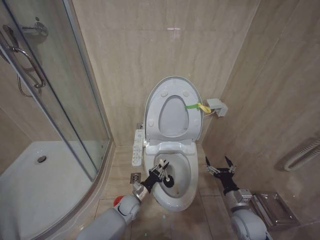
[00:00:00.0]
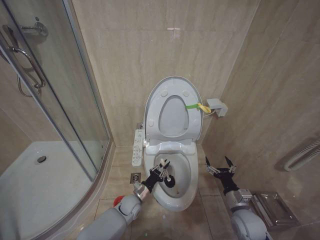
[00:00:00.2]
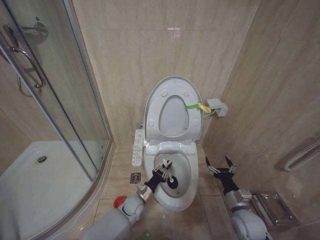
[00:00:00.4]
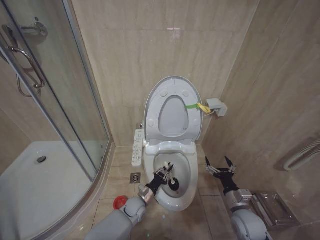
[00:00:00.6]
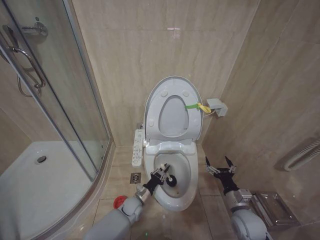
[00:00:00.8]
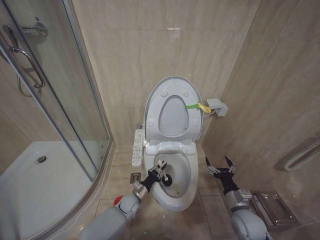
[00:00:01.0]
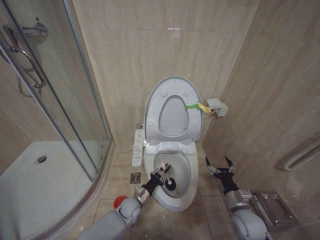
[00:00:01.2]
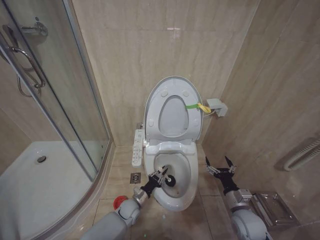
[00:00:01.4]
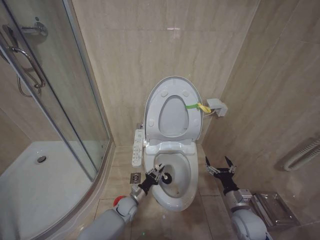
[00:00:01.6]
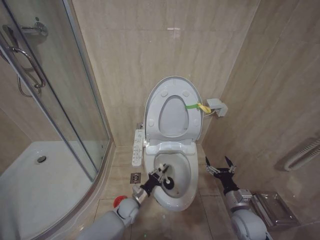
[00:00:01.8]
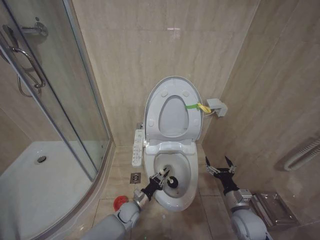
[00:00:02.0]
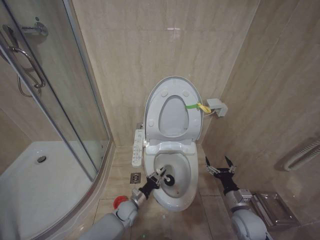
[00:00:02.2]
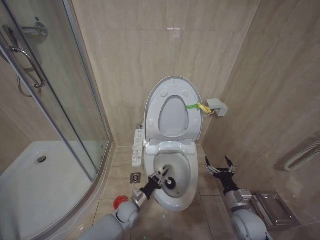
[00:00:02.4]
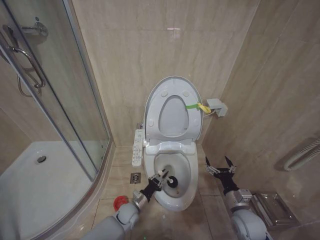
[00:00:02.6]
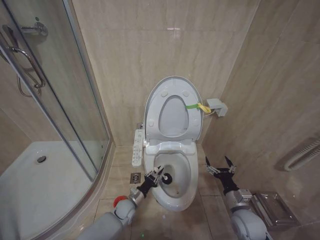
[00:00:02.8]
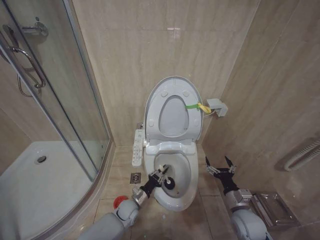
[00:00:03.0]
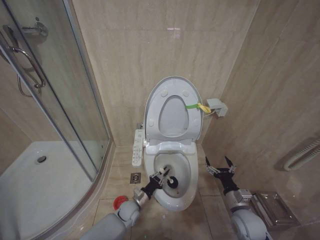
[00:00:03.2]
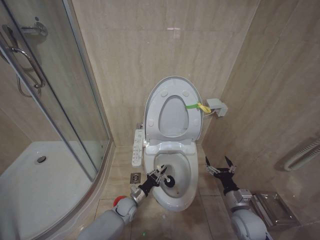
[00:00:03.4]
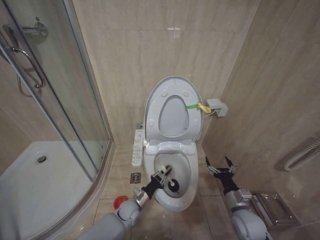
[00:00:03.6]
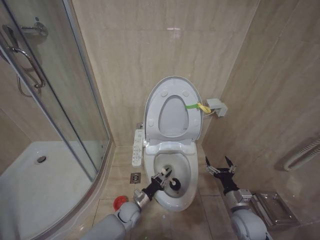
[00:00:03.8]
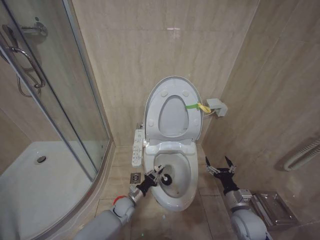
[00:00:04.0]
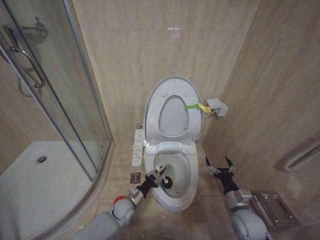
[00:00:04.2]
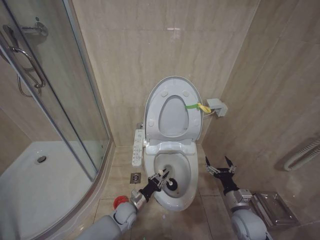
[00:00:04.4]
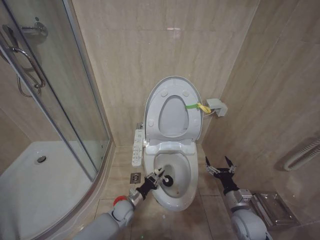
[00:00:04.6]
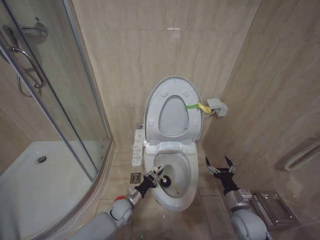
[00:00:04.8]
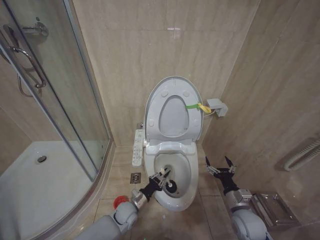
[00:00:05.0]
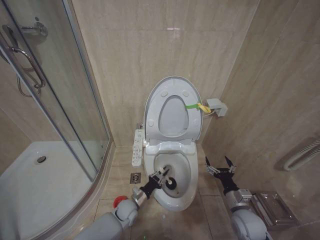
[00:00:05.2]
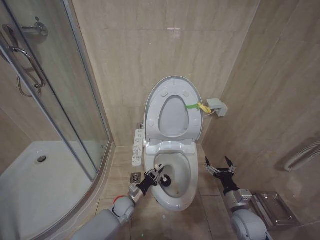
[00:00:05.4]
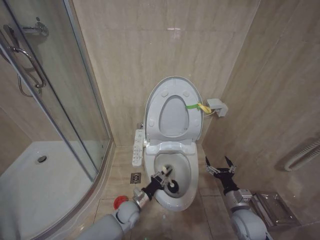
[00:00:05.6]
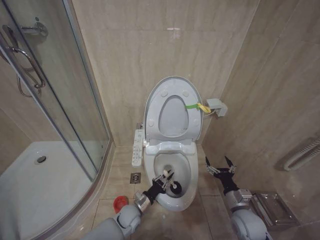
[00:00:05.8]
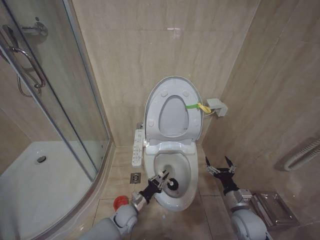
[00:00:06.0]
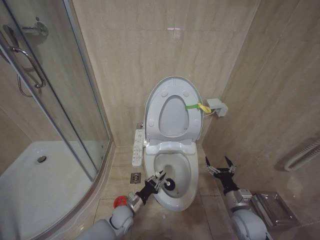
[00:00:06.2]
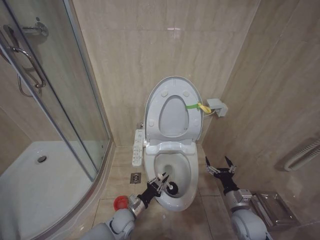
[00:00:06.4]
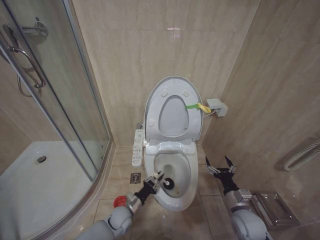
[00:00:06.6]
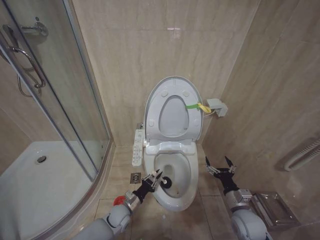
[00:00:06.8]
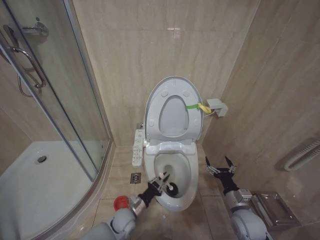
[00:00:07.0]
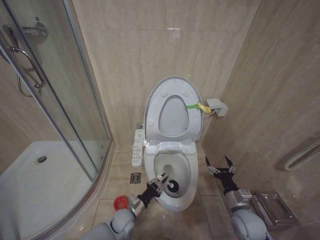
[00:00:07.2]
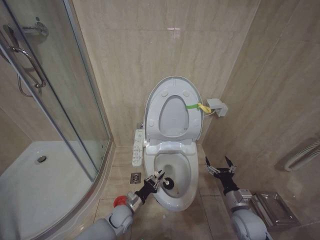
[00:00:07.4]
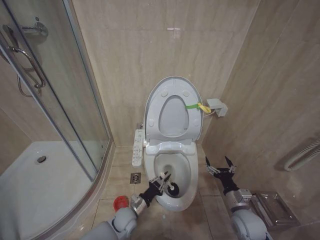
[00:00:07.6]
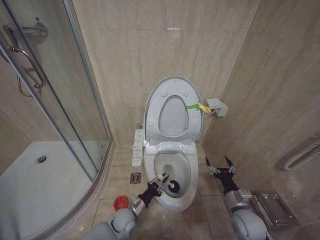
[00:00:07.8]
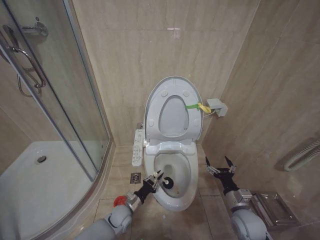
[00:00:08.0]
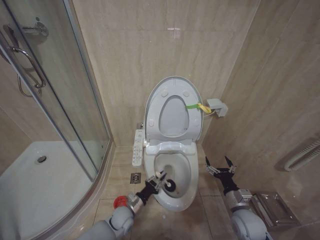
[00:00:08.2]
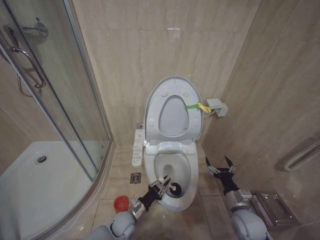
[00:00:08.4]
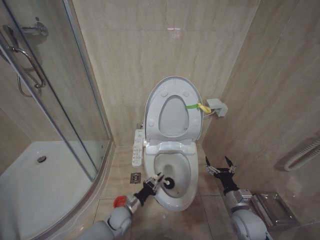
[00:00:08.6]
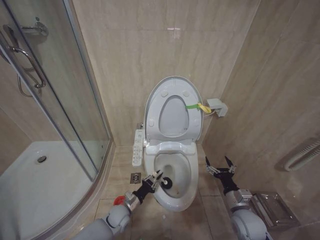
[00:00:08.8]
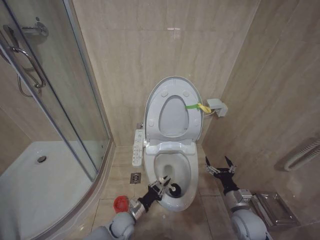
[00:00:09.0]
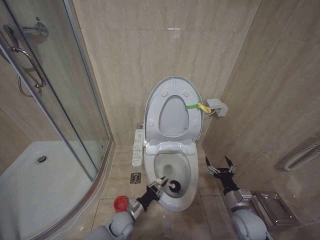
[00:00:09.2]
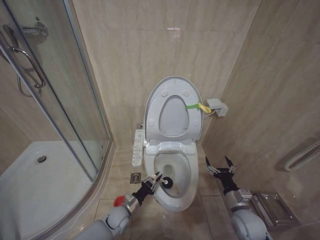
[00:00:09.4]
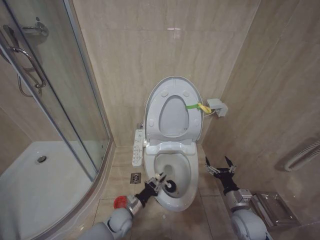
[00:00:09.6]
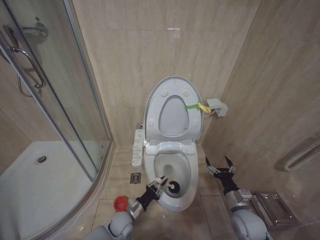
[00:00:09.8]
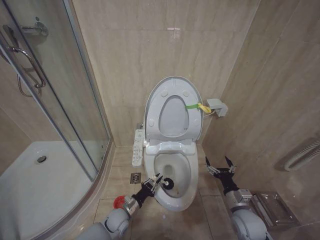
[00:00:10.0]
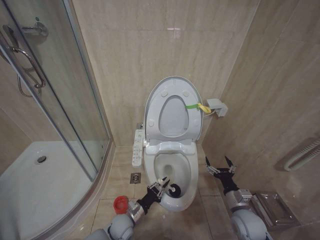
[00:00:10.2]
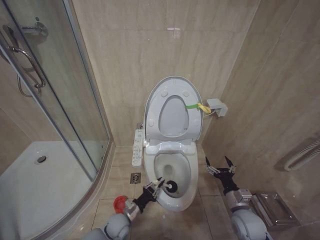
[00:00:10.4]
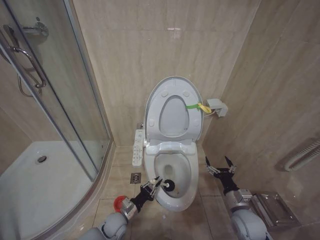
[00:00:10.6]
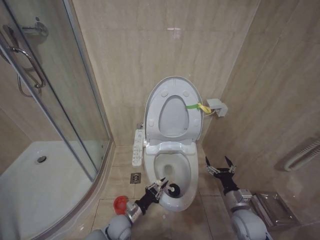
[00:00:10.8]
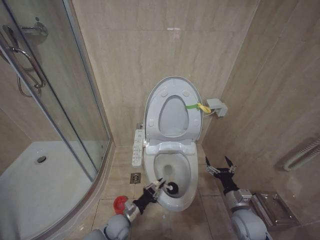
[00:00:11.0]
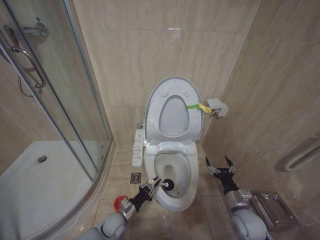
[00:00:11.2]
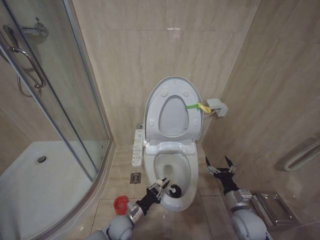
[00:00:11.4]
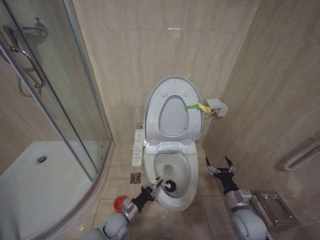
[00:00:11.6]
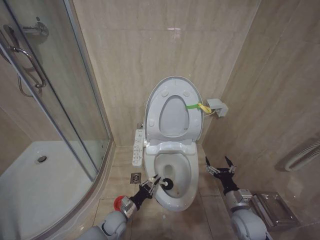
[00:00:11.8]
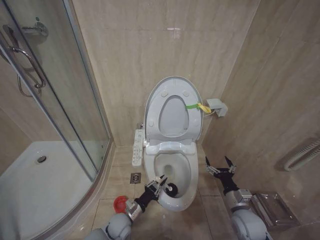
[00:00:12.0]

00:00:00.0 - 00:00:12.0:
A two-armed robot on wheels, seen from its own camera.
Task of the whole recording: Open the toilet lid, clean the toilet bowl with a toilet brush, close the toilet lid, and flush.
00:00:01.6 - 00:00:03.0: The grippers move only a little.
00:00:06.0 - 00:00:10.4: The grippers stay close to where they were, moving slightly.

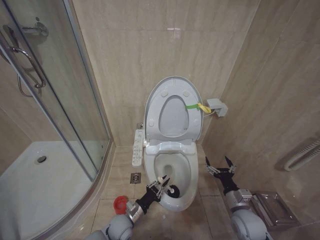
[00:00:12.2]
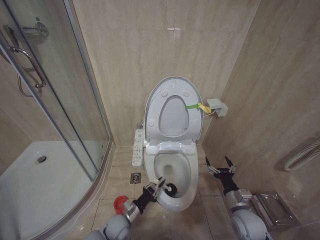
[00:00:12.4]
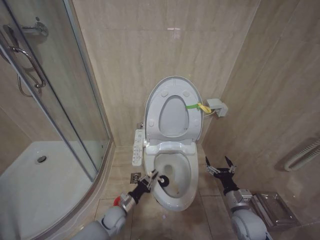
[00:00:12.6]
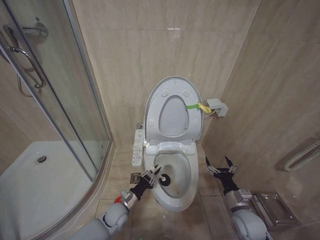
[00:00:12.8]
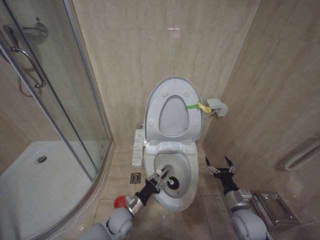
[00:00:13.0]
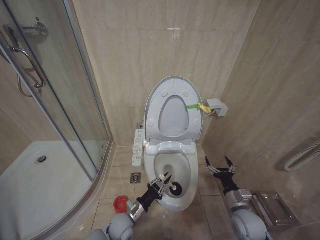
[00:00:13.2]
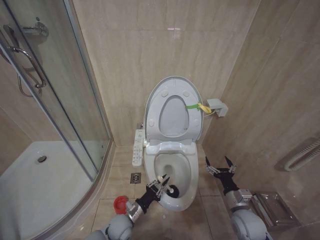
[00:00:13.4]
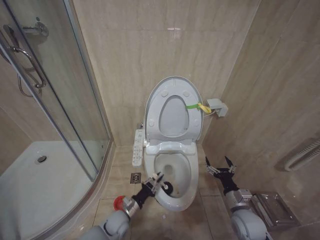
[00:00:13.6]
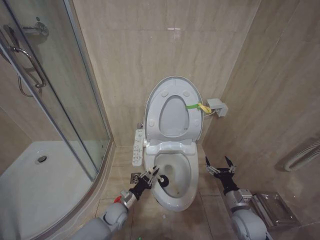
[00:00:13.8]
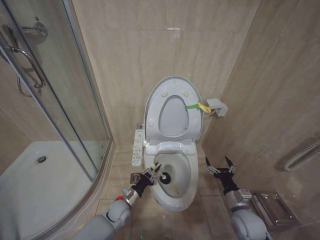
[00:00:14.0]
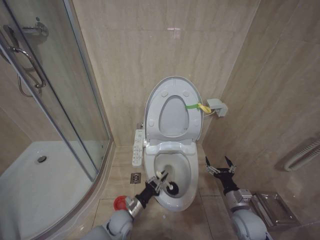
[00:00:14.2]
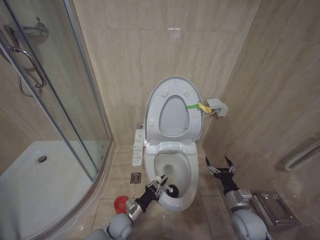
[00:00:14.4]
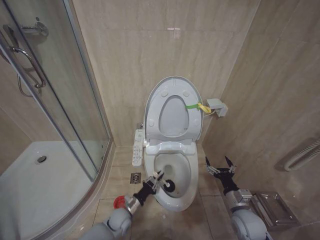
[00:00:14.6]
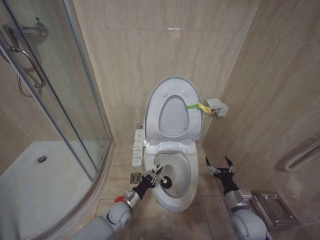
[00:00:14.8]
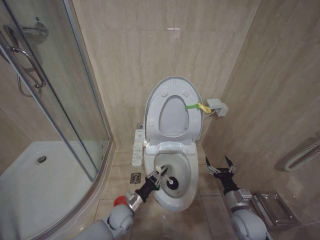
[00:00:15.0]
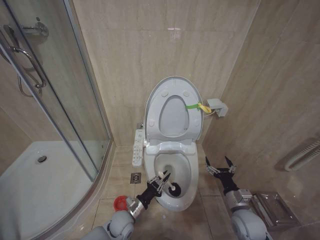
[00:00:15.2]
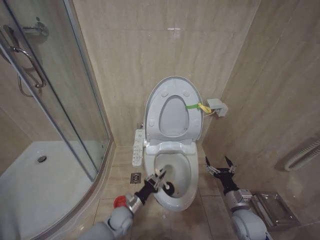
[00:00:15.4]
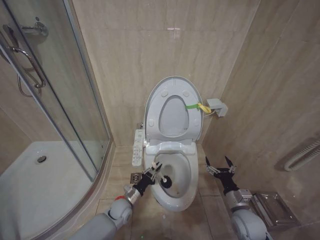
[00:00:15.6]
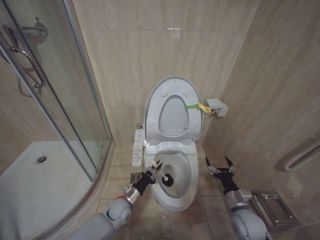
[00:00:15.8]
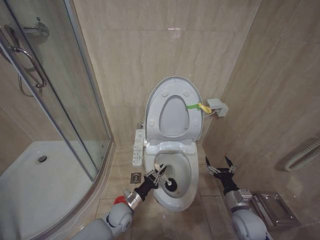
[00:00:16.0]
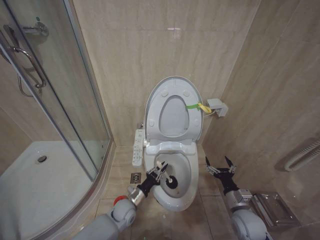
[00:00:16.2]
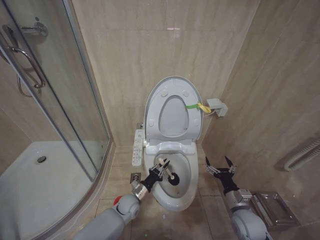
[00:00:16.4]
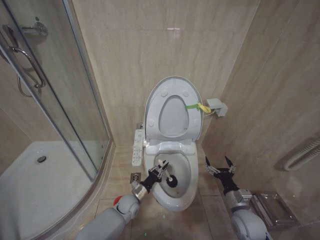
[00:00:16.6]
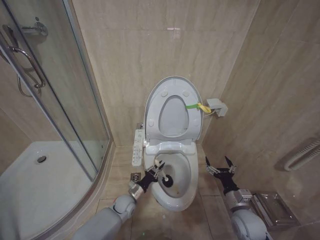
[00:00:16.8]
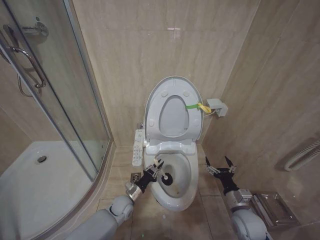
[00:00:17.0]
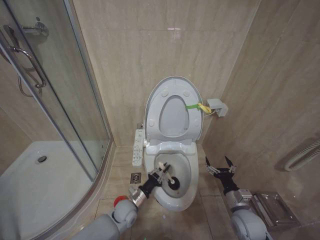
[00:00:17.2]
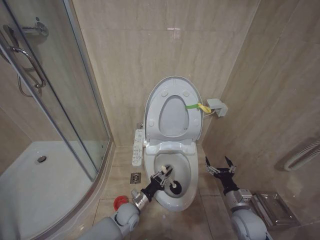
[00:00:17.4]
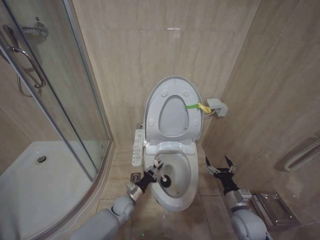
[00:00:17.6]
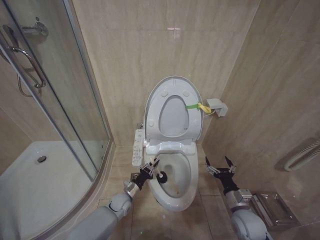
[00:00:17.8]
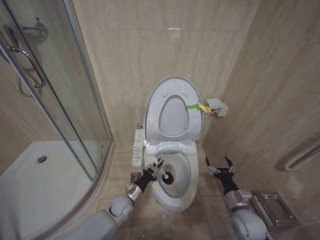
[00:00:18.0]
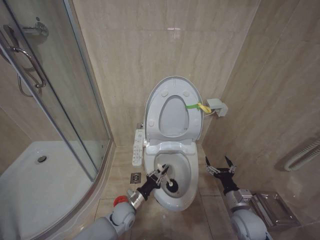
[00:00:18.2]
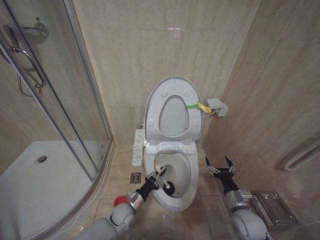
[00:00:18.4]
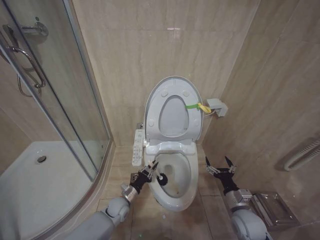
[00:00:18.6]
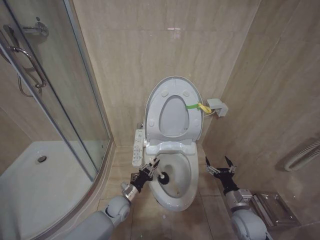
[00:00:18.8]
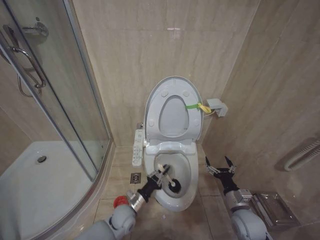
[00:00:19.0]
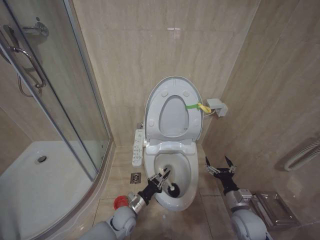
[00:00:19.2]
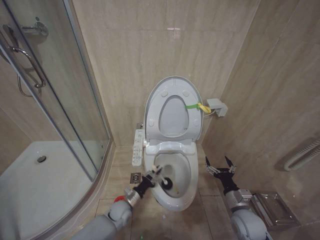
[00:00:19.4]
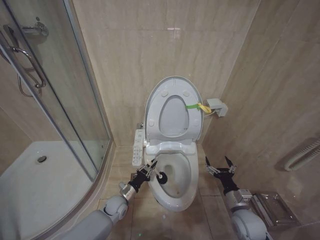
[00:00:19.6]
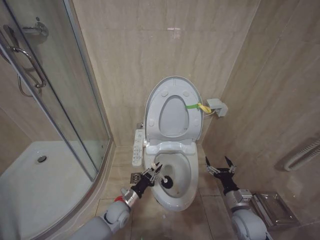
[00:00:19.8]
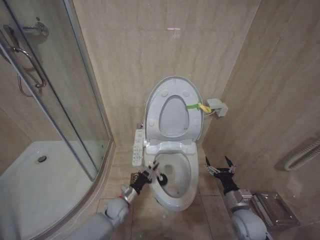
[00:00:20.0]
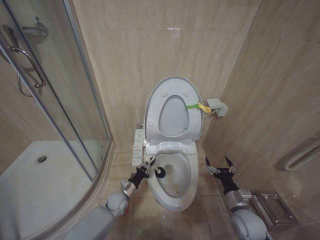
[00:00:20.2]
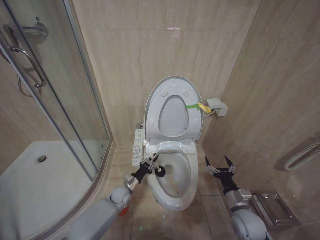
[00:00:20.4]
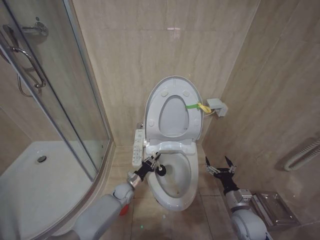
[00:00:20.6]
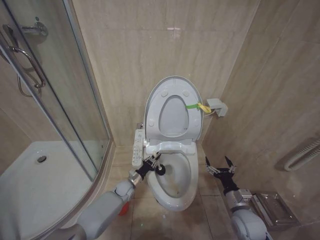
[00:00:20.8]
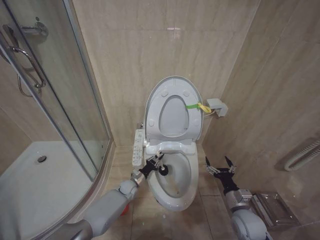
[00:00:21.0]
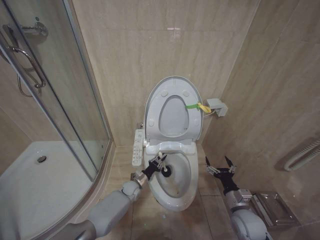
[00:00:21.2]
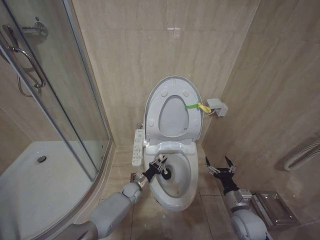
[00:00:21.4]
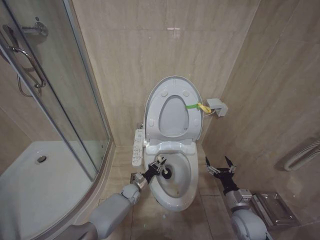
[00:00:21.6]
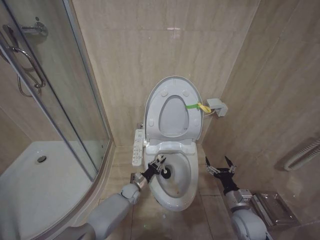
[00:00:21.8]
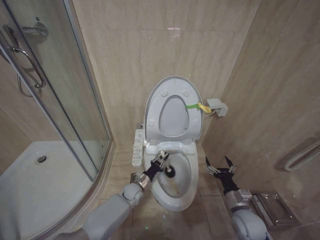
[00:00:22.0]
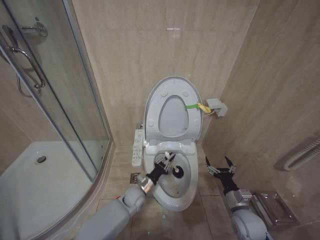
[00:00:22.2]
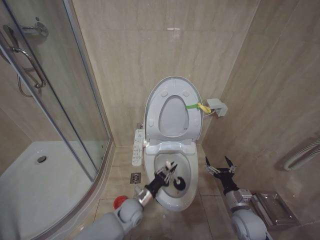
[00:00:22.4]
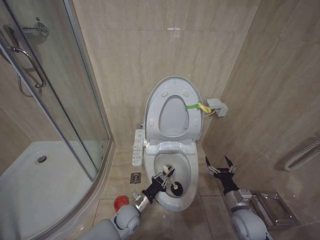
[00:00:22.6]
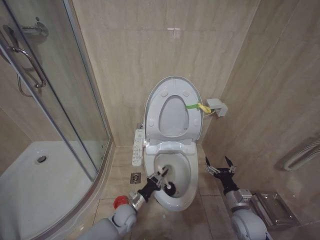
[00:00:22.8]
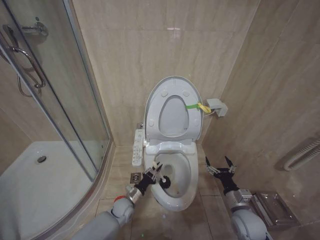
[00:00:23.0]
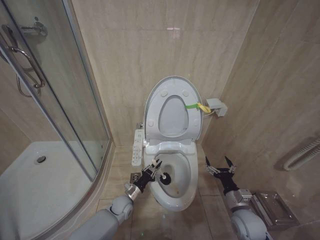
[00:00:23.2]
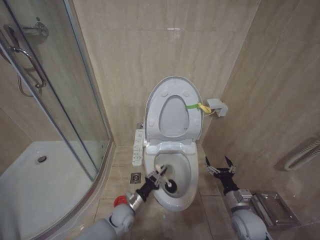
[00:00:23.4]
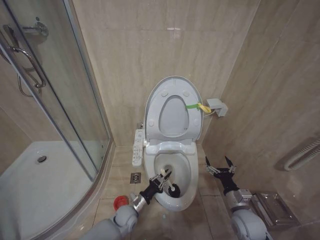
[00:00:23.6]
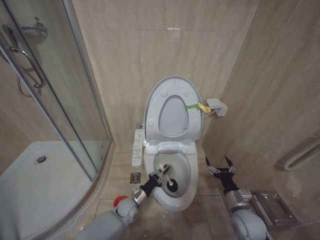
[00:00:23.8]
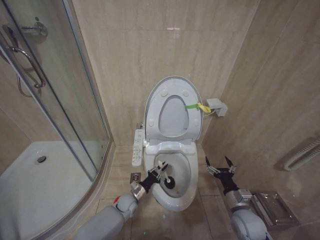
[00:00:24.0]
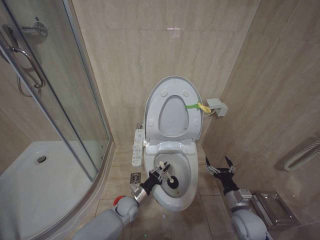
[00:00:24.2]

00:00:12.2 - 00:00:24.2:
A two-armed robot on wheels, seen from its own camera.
Task of the whole recording: Open the toilet lid, clean the toilet bowl with a toilet brush, close the toilet lid, and flush.
00:00:12.2 - 00:00:13.8: The left gripper goes forward and backward, some 5 cm each way, reversing 2 times.
00:00:13.8 - 00:00:15.2: The left gripper ends up approximately 5 cm from where it was.
00:00:15.2 - 00:00:16.6: The left gripper heads forward, covering about 5 cm.
00:00:16.6 - 00:00:18.2: The left gripper swings forward and backward, roughly 5 cm each way, with 2 reversals.
00:00:18.2 - 00:00:19.8: The grippers make only small movements.
00:00:19.8 - 00:00:21.2: The left gripper travels forward by roughly 10 cm.
00:00:21.2 - 00:00:22.6: The left gripper moves backward, approximately 15 cm.
00:00:22.6 - 00:00:24.2: The left gripper moves forward and backward over about 5 cm, changing direction 2 times.
